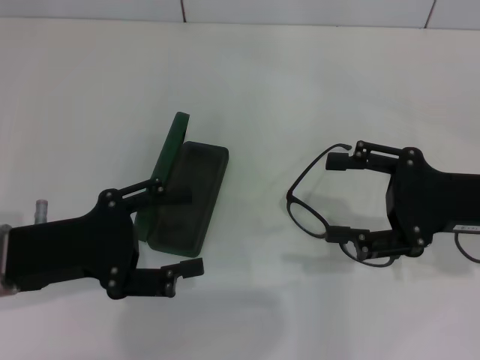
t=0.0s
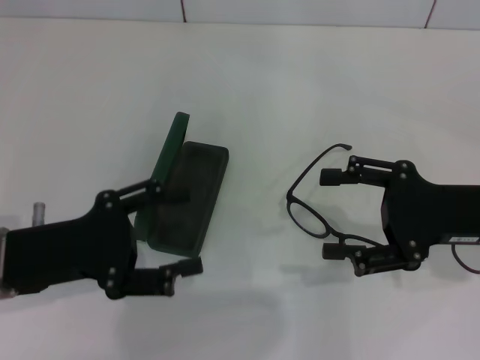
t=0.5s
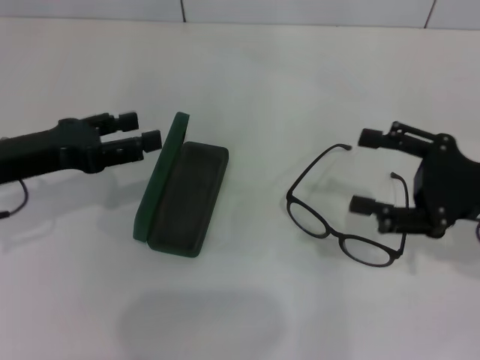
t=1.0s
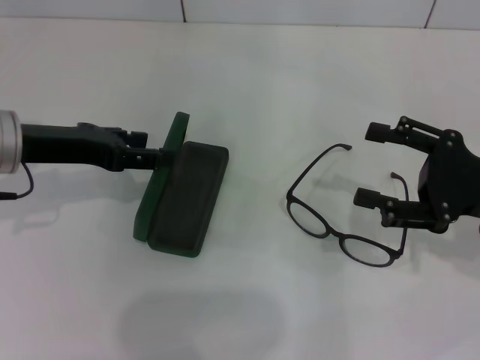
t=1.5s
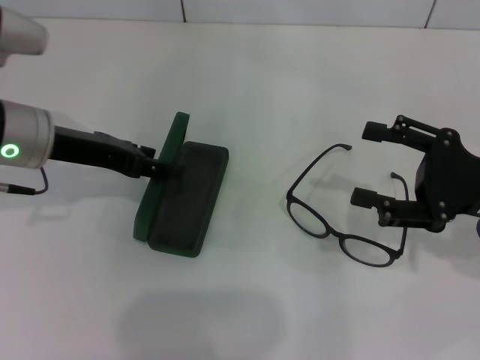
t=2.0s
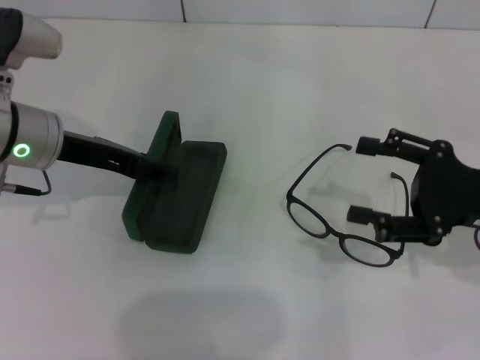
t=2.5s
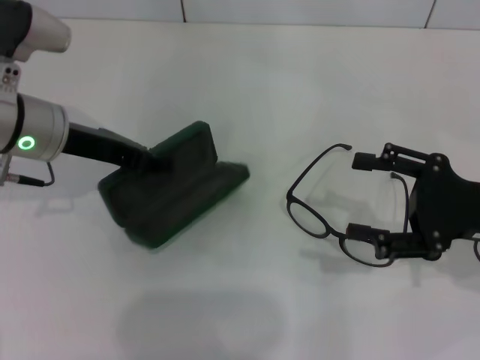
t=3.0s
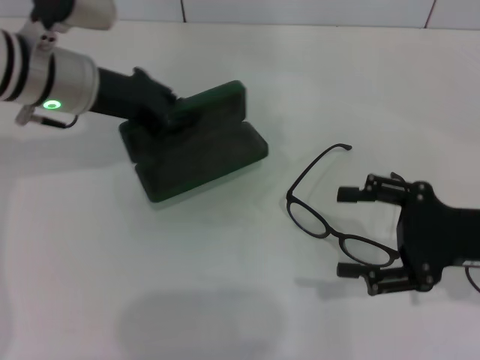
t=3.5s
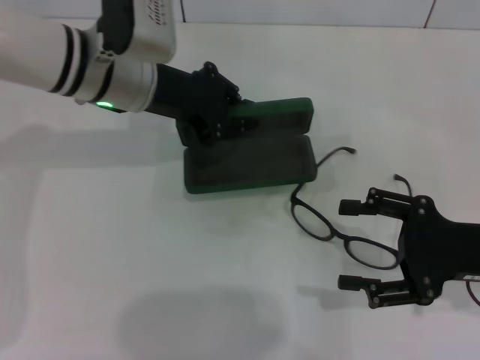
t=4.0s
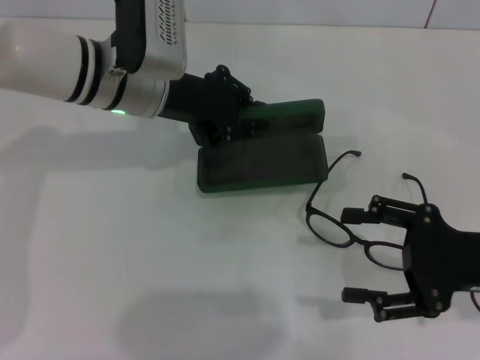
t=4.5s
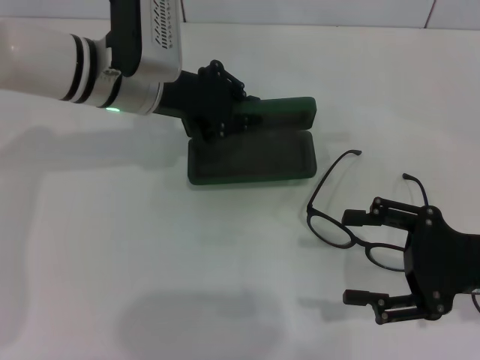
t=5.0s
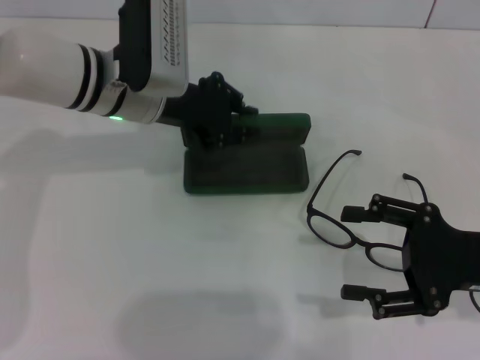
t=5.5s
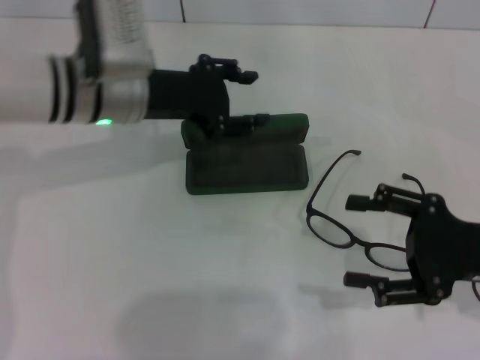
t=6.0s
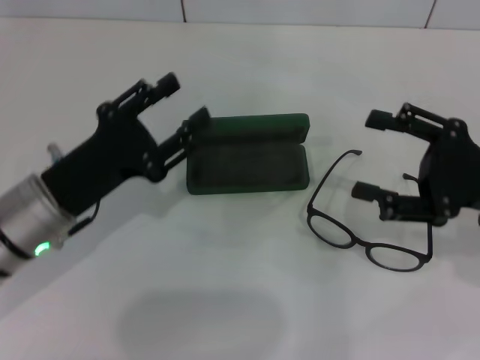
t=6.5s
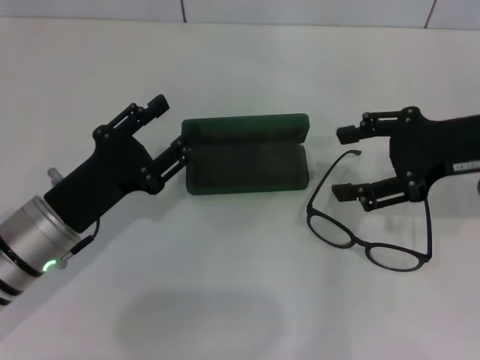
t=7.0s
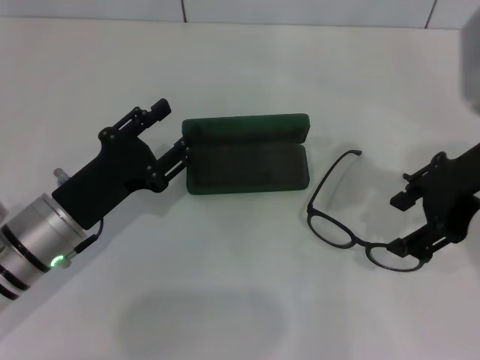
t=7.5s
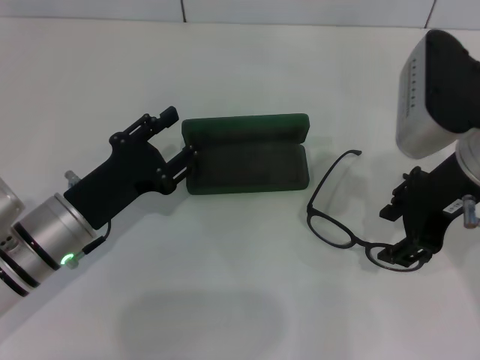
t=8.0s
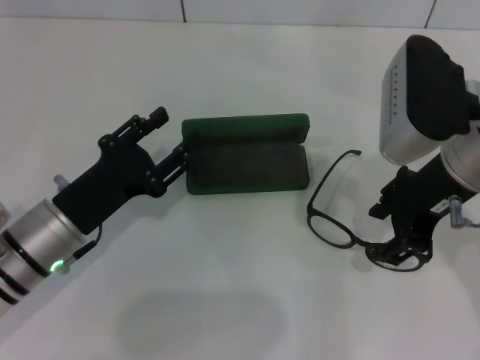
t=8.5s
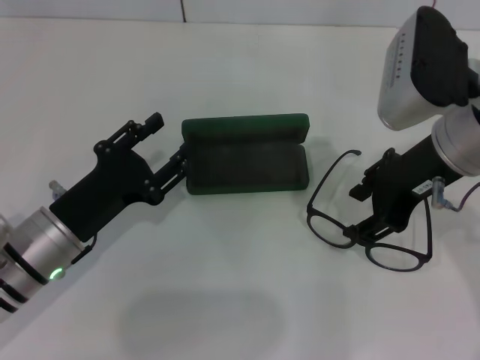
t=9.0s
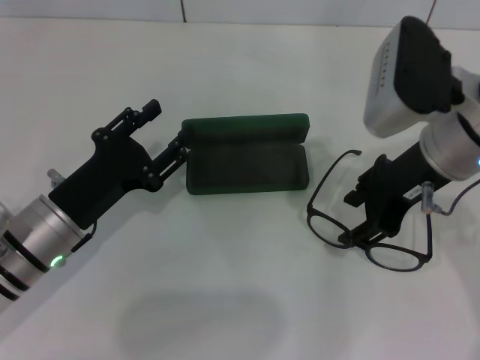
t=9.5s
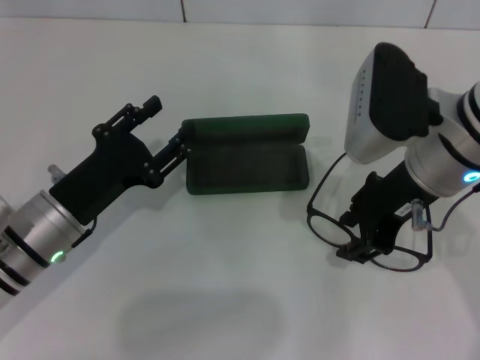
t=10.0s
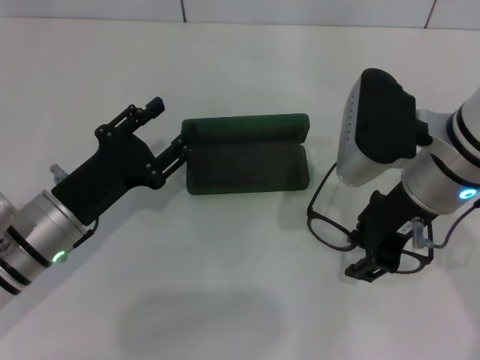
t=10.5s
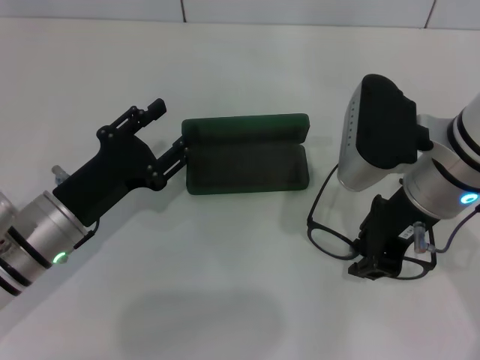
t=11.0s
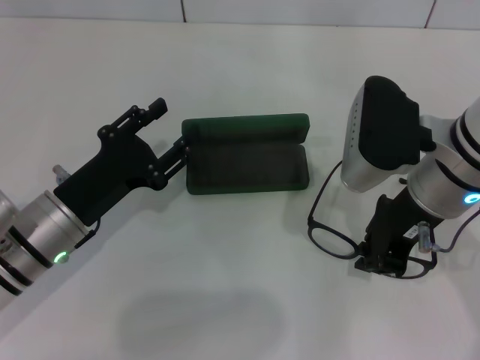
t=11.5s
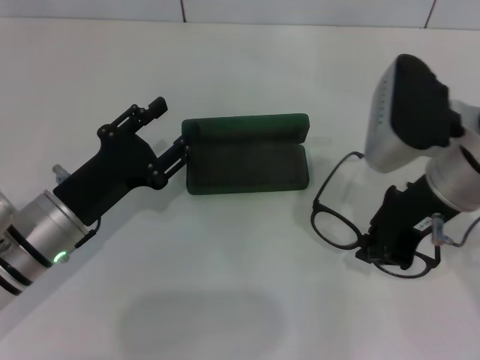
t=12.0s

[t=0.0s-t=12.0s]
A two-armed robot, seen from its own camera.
Step, t=0.0s to t=2.5s: Grab the glasses case with your left hand.
Step, t=3.0s to t=6.0s: Place the glasses case in the center of the table with your left hand.
Step, t=6.5s to t=11.5s: Grab the eyeglass frame with your right hand.
t=0.0s to t=2.0s: The left gripper travels forward by approximately 10 cm.
t=2.0s to t=4.0s: The left gripper heads to the right and forward, covering roughly 10 cm, and closes up.
t=4.0s to t=6.0s: The left gripper opens.
t=6.0s to t=8.0s: The right gripper goes some 15 cm upward, to the left and forward. The left gripper moves backward and downward, roughly 15 cm.
t=8.0s to t=10.0s: The grippers stay close to where they were, moving slightly.
t=10.0s to t=12.0s: The right gripper closes up.

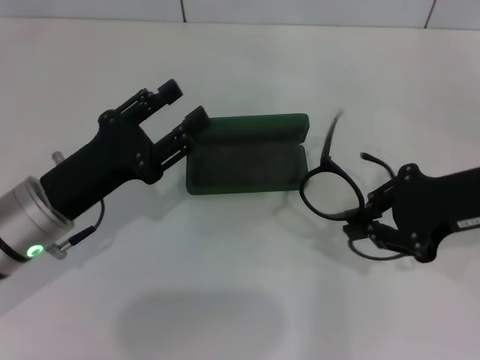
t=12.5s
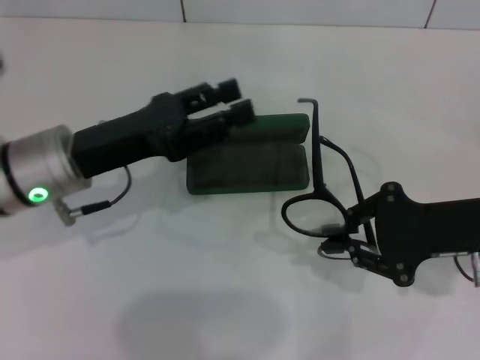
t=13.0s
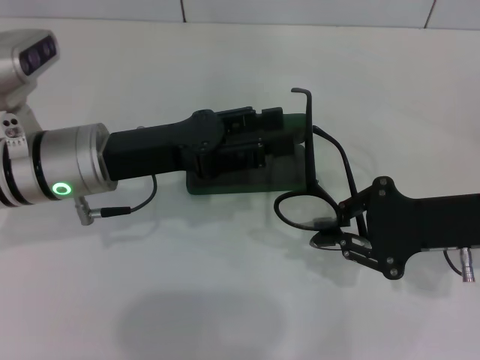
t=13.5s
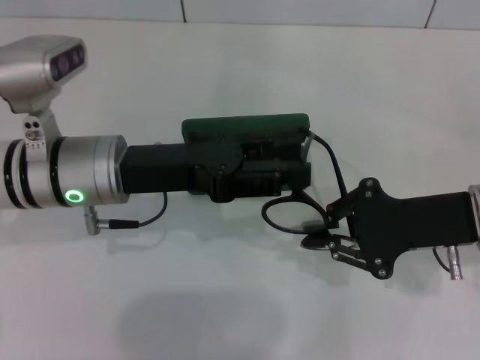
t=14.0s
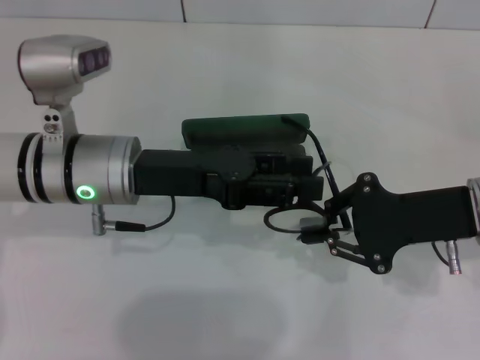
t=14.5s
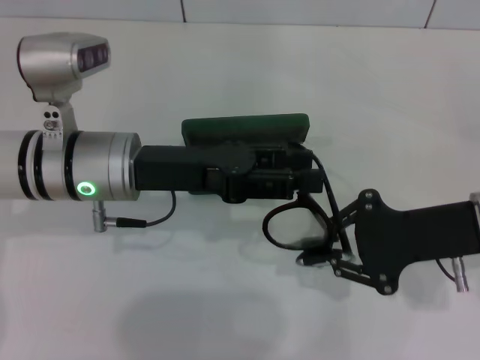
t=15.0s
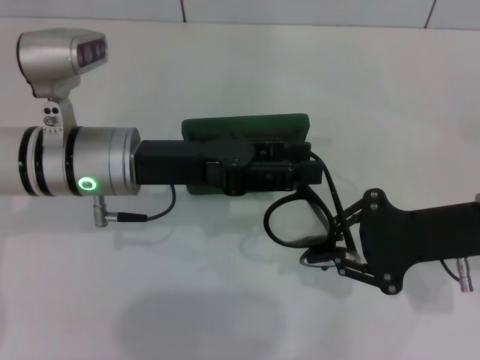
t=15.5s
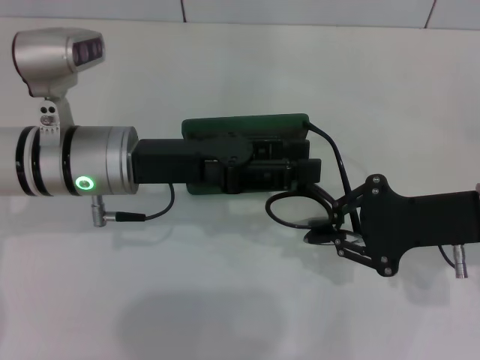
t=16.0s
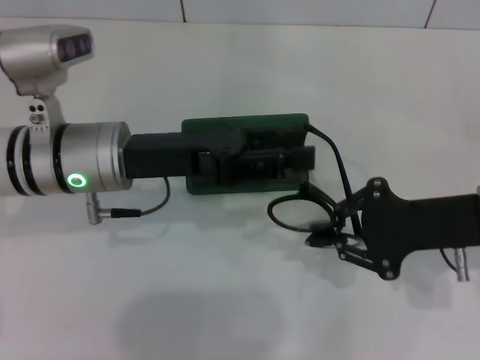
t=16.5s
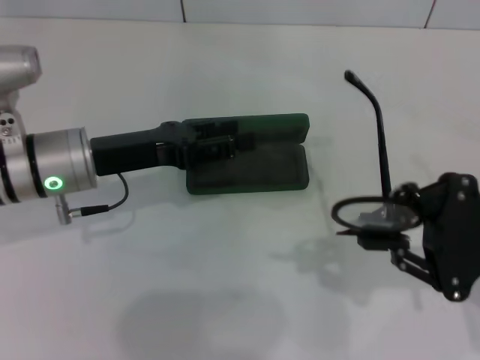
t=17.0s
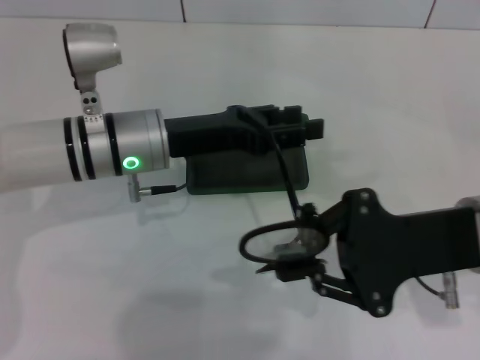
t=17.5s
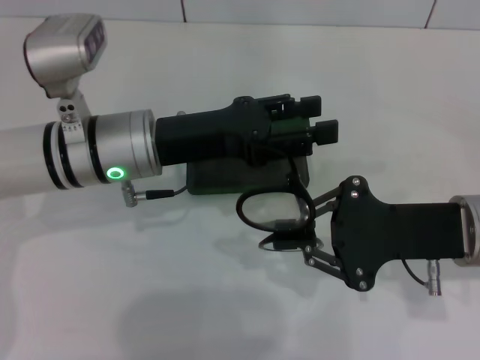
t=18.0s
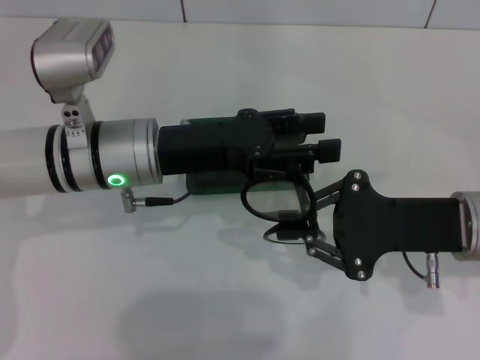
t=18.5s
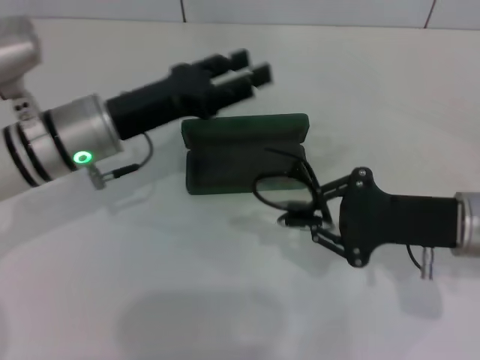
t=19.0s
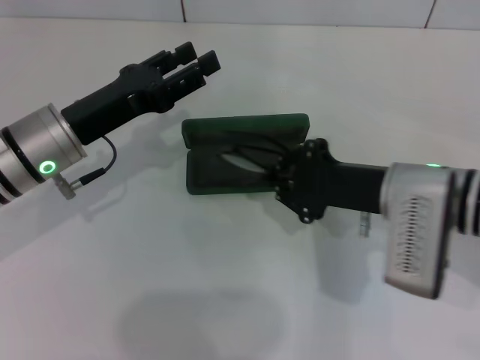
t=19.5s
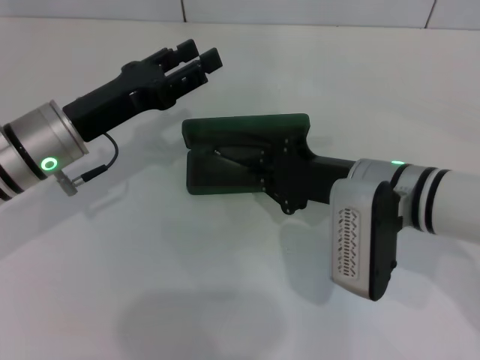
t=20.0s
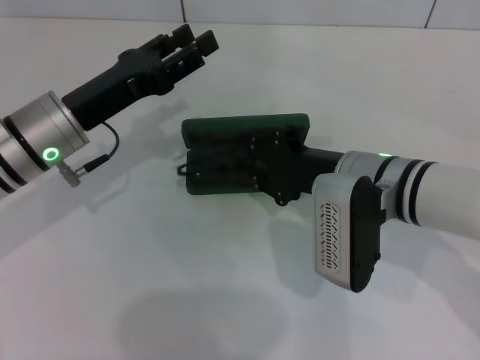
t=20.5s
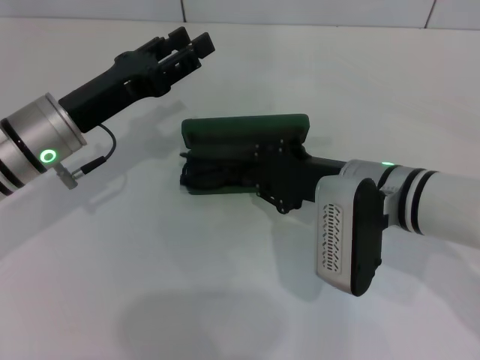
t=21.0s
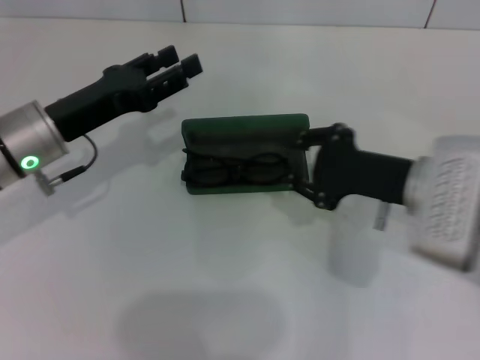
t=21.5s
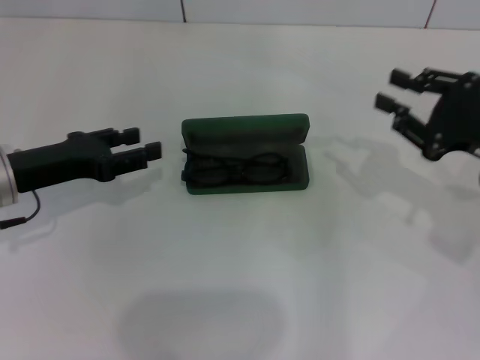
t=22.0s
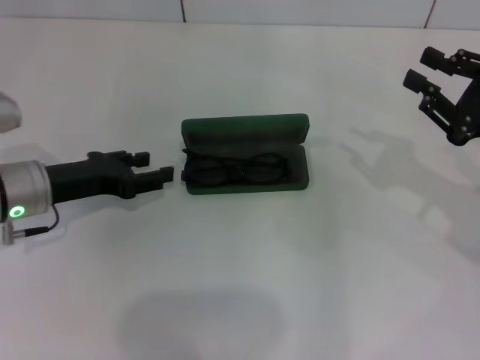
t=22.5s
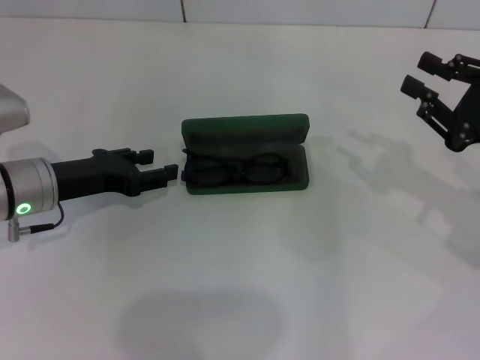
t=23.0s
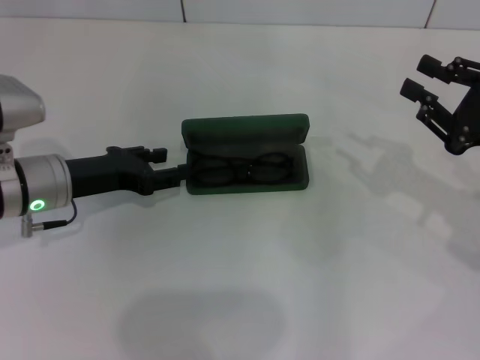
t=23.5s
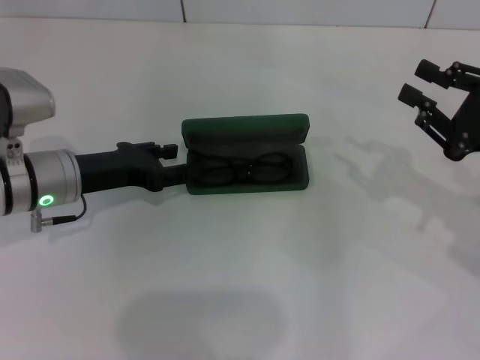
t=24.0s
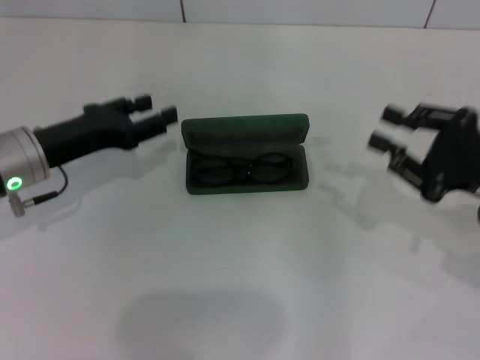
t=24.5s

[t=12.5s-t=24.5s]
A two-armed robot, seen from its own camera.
Step, t=12.5s to t=18.0s: Fold the frame with your left hand.
Step, t=19.0s to t=21.0s: Put the glasses into the case with your right hand.
t=12.5s to t=14.5s: The right gripper ends up roughly 5 cm from where it was, while the left gripper moves to the right and forward, approximately 10 cm.
t=14.5s to t=16.5s: There are only small adjustments of the grippers.
t=18.5s to t=20.5s: Both grippers travel together to the left, some 10 cm.
t=20.5s to t=22.5s: The right gripper travels to the right by about 20 cm, while the left gripper ends up roughly 5 cm from where it was.
t=22.5s to t=24.5s: The grippers move only a little.

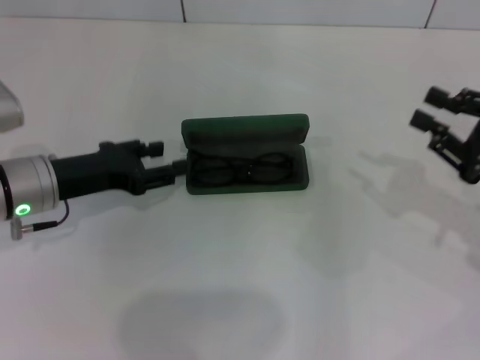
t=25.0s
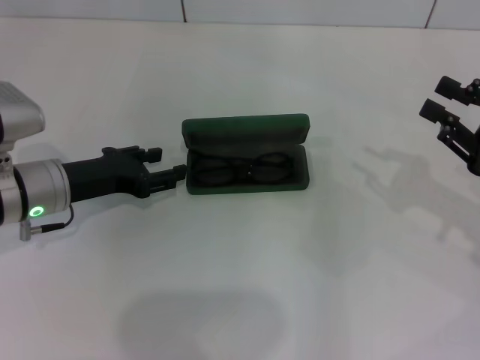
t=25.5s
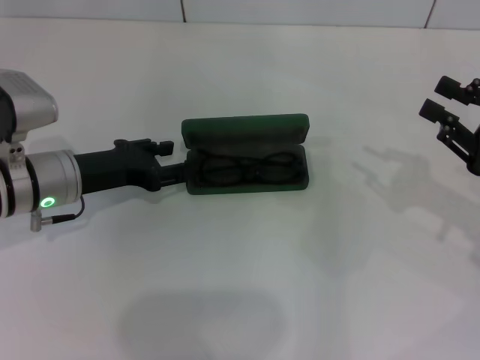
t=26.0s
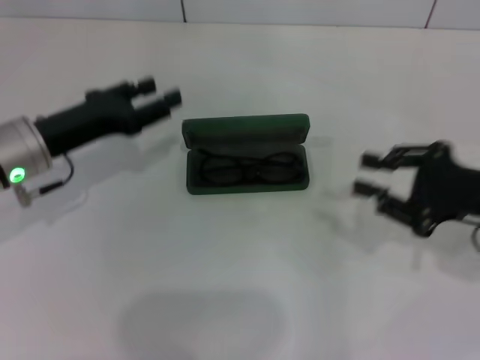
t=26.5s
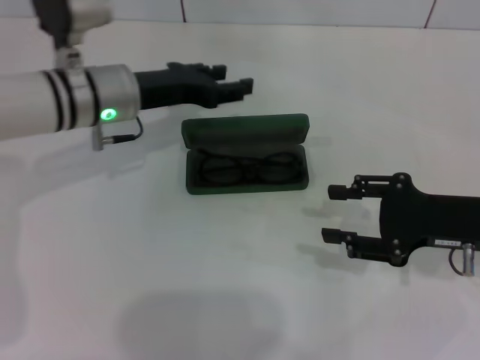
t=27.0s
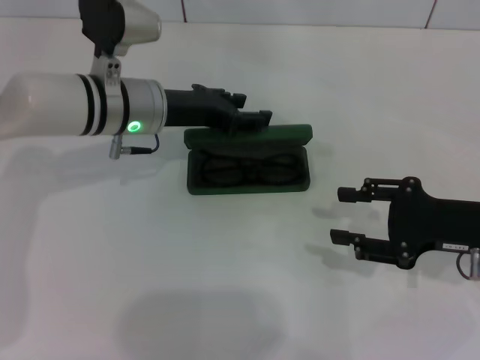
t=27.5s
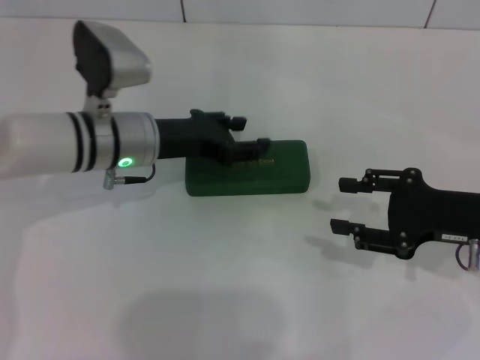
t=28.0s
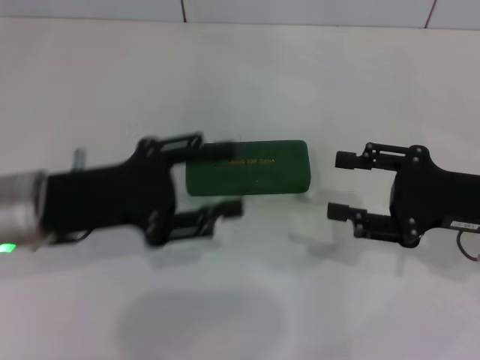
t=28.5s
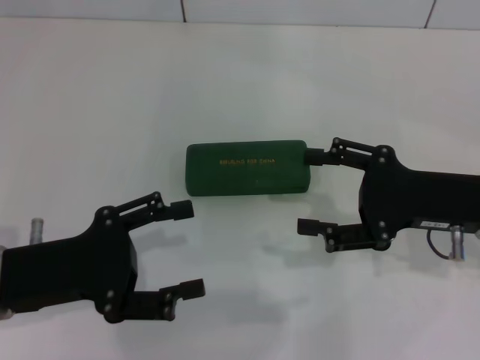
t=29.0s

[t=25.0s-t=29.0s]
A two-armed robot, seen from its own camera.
Step, t=25.0s to t=27.5s: Close the glasses case with your left hand.
t=25.0s to t=27.0s: The right gripper shifts some 5 cm to the left. Meanwhile the left gripper heads forward and to the right, covering approximately 10 cm.
t=27.0s to t=29.0s: The right gripper opens, while the left gripper heads backward and to the left, covering approximately 20 cm.
